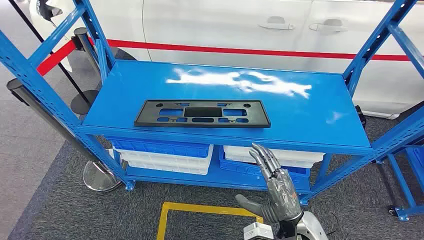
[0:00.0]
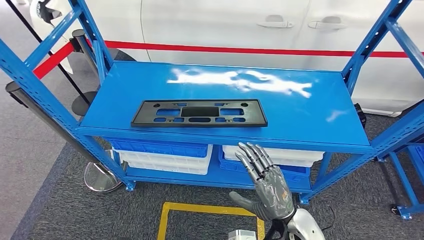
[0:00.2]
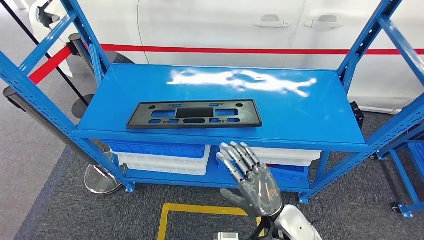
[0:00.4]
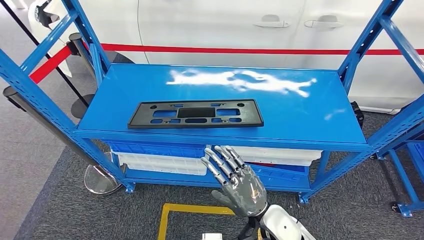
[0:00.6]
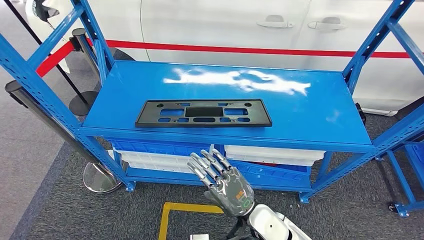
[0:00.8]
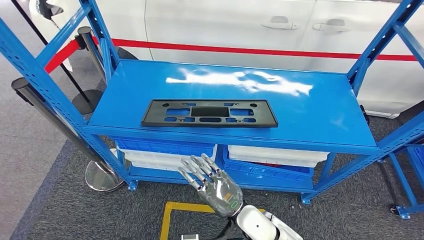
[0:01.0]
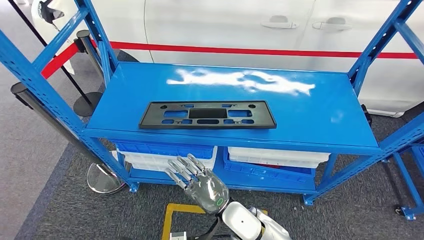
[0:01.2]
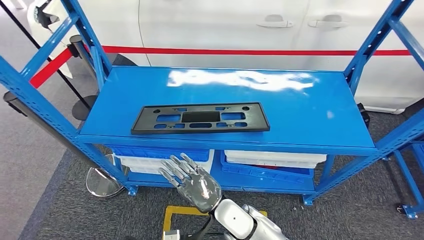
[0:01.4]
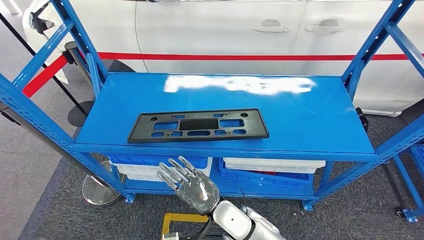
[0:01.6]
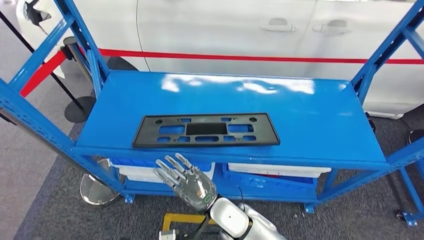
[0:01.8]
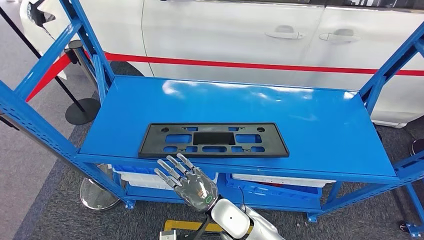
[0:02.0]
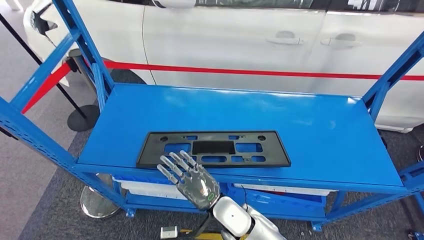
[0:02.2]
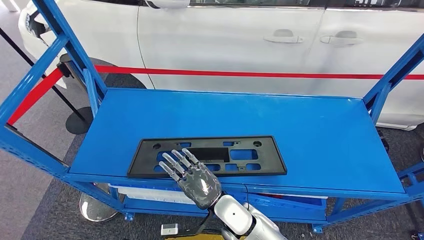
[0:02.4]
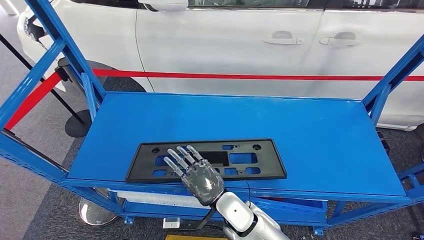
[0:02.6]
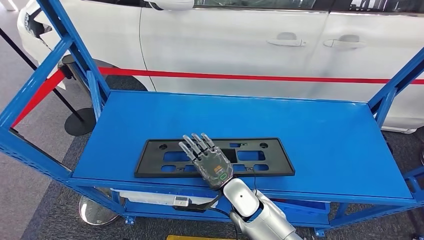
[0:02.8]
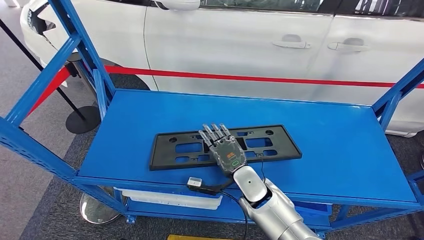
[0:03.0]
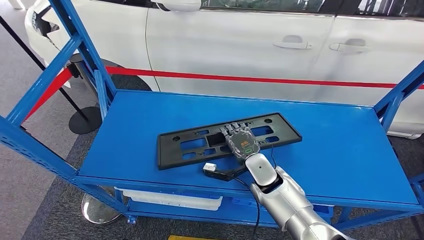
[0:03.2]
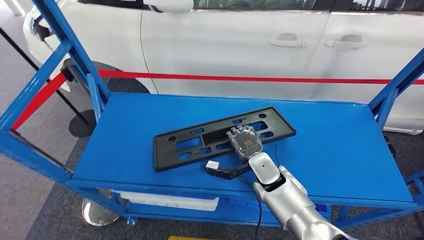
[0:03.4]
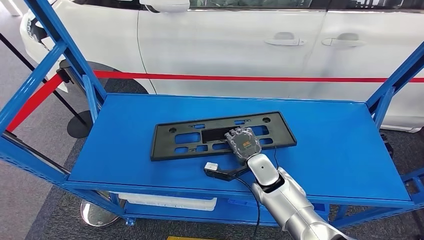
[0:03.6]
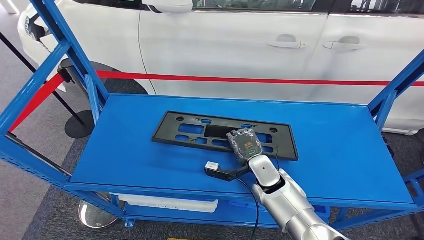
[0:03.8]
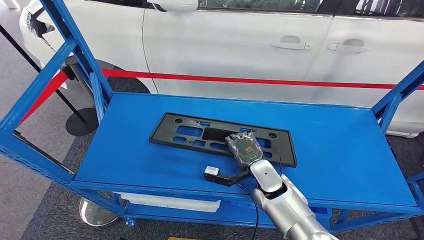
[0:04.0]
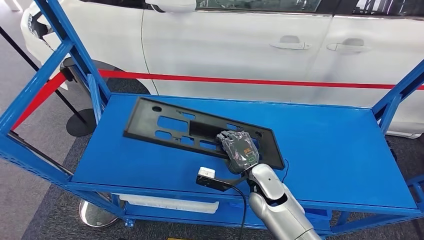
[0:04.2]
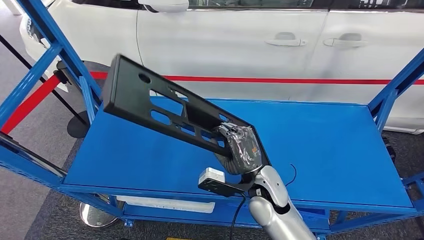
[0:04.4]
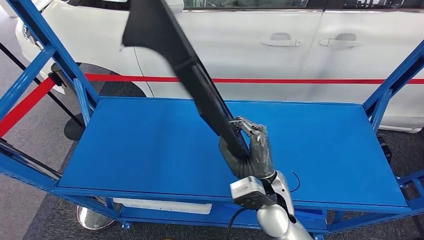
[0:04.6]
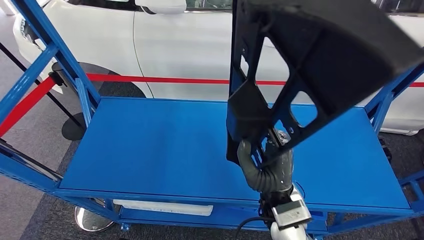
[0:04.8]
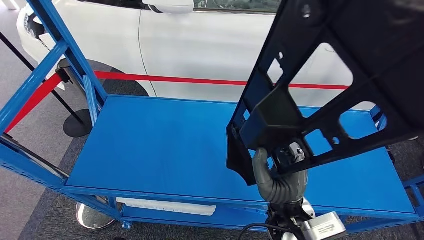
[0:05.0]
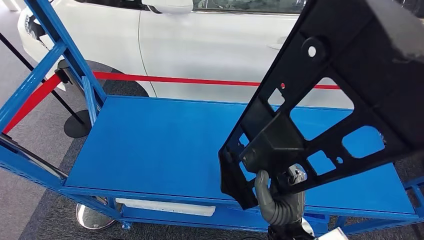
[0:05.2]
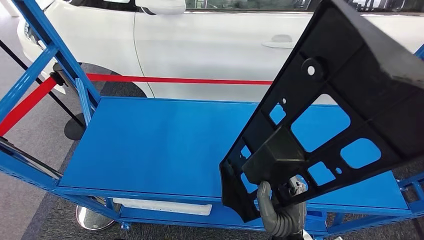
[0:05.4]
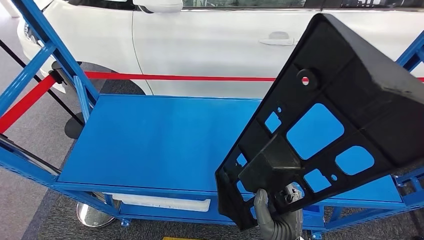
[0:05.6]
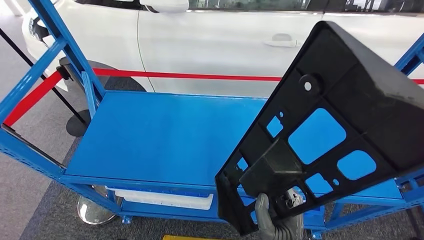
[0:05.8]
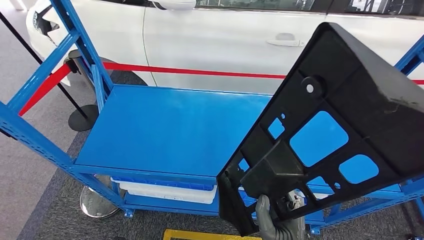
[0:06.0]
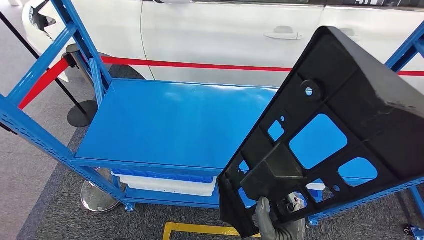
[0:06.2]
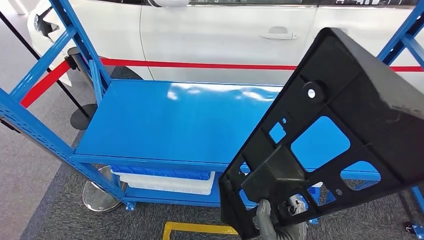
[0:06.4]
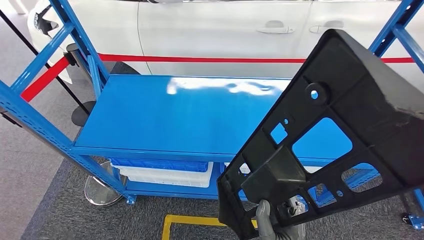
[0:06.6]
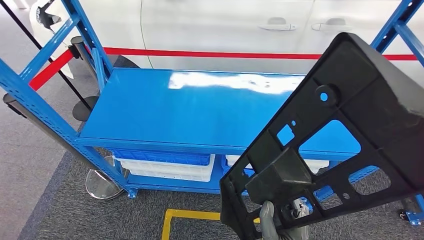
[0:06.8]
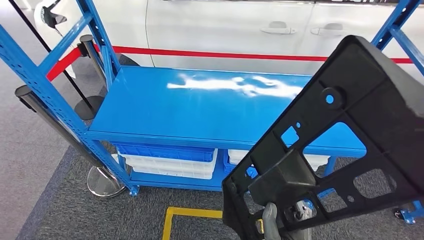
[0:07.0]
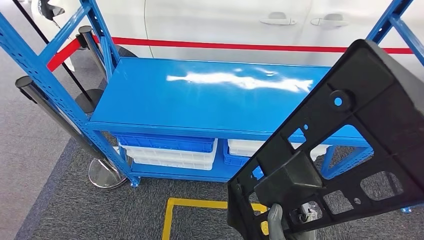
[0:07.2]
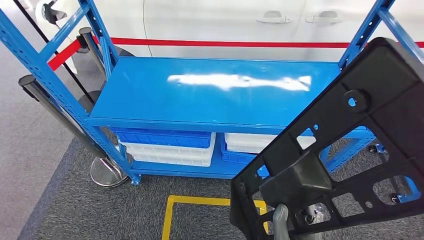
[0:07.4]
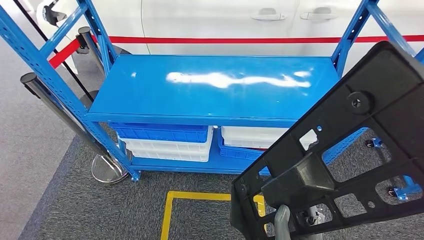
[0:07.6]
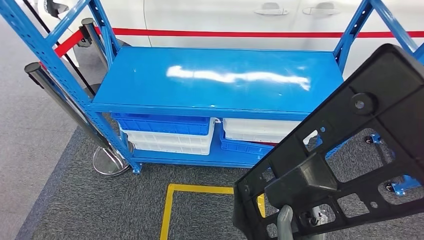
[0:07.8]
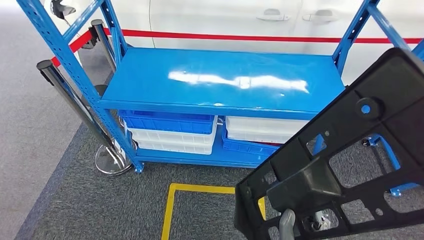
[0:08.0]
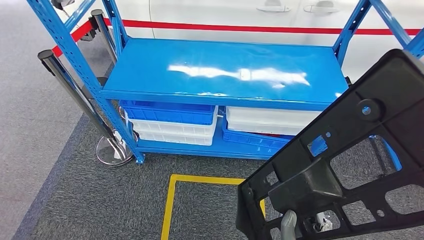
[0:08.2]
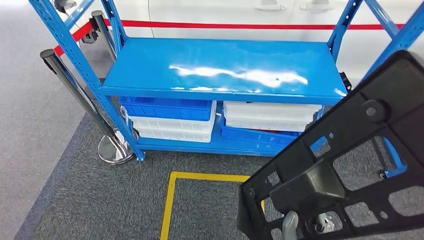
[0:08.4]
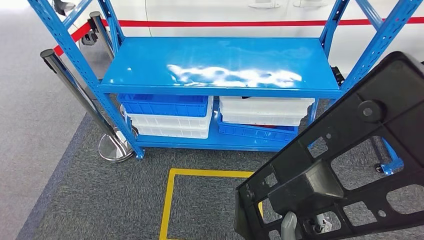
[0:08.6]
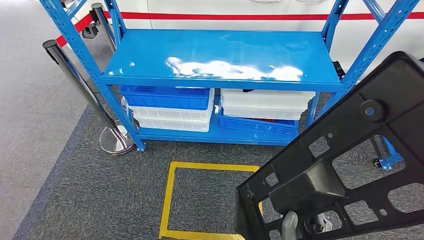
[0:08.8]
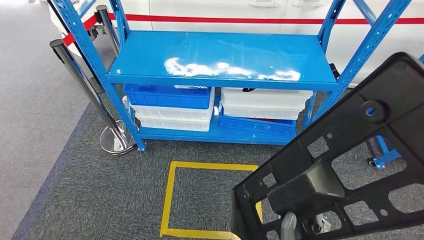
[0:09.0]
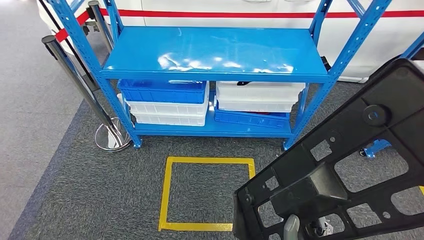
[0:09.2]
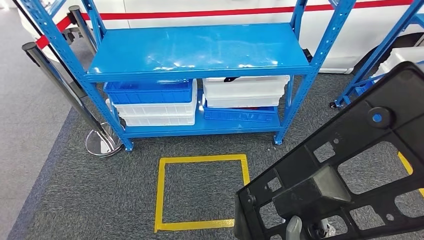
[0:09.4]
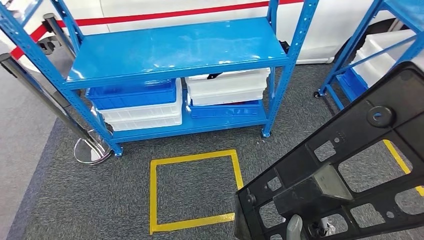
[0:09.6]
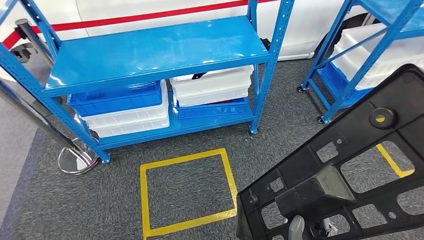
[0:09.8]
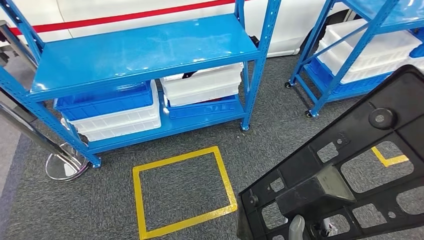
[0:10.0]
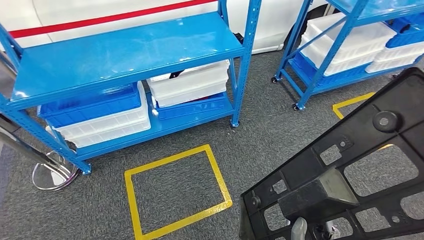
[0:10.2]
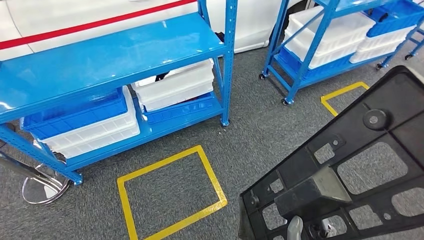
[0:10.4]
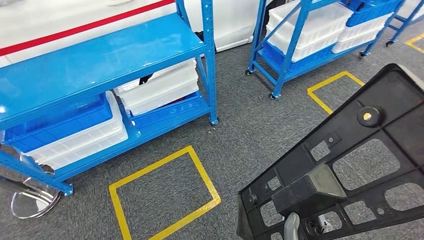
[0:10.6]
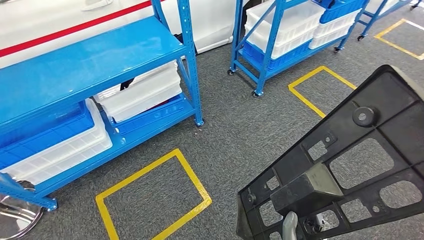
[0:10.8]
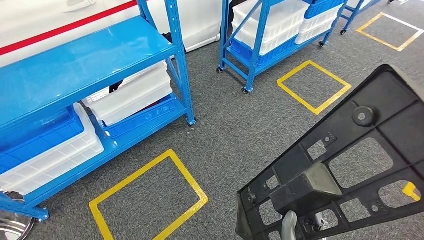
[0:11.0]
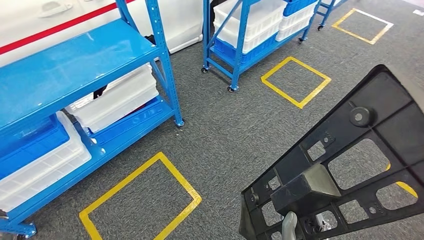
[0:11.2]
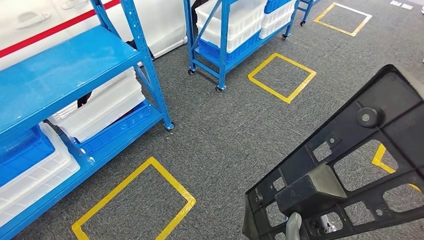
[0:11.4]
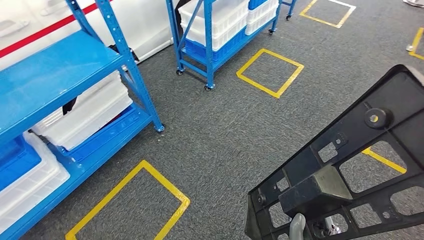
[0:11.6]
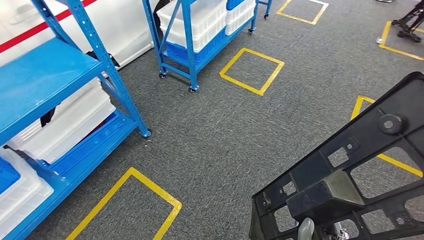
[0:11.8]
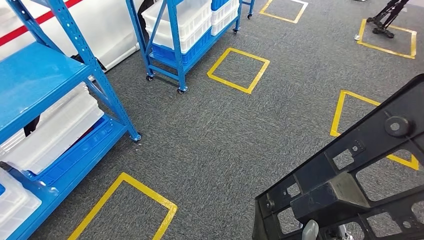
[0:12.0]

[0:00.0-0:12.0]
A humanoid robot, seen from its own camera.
Step, 0:00.0 to 0:05.8: Pick up the large parts from the shelf.

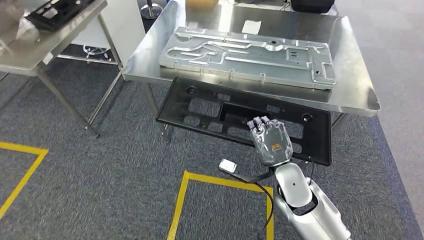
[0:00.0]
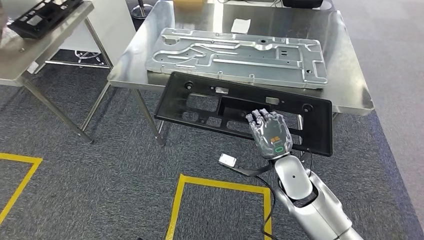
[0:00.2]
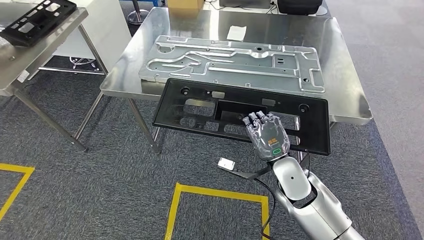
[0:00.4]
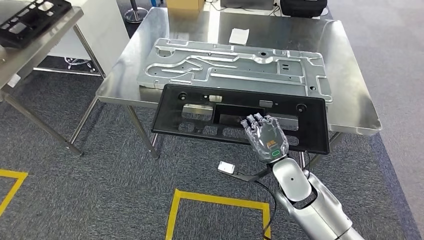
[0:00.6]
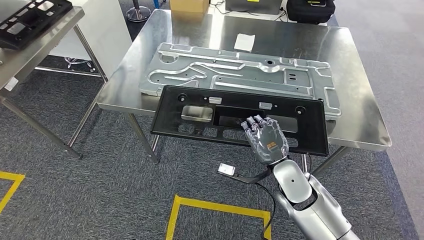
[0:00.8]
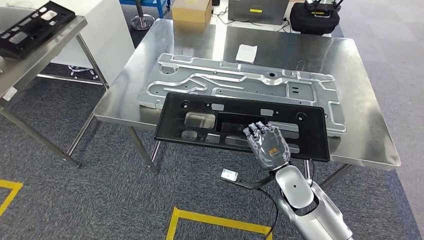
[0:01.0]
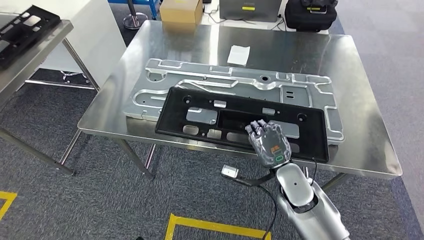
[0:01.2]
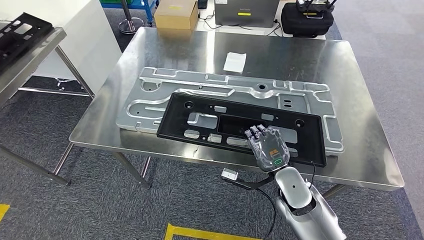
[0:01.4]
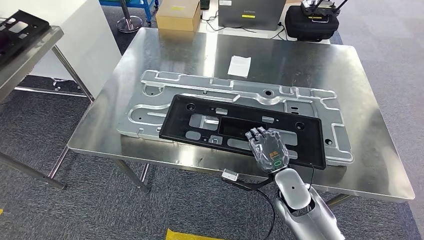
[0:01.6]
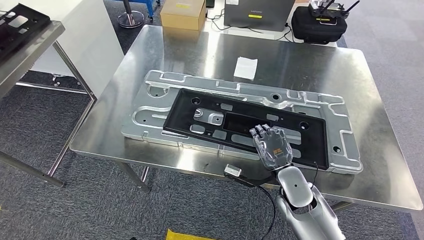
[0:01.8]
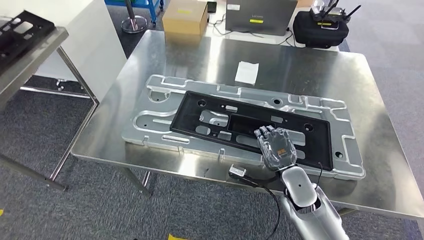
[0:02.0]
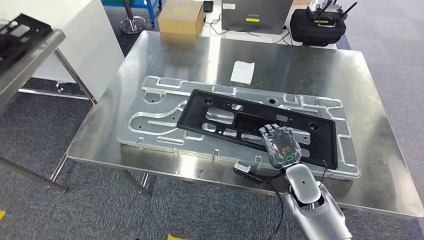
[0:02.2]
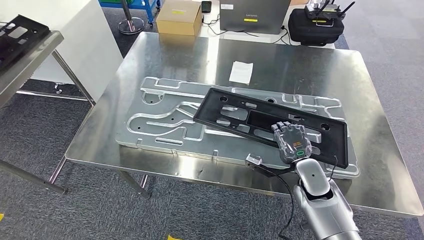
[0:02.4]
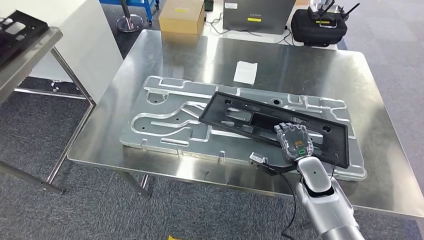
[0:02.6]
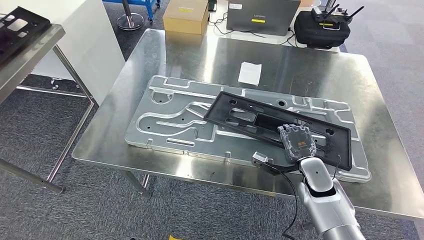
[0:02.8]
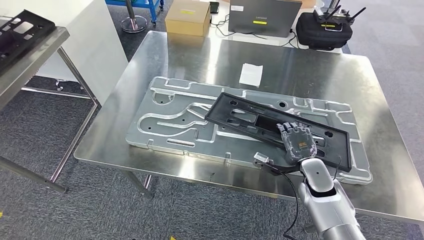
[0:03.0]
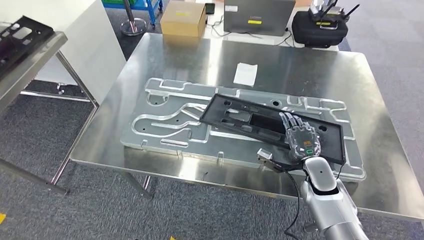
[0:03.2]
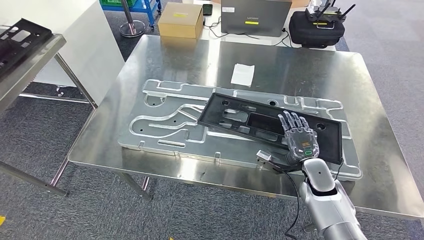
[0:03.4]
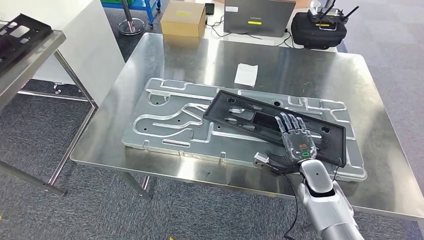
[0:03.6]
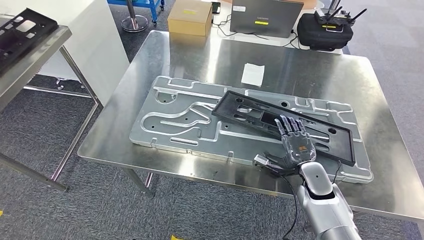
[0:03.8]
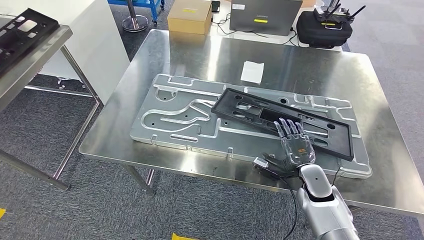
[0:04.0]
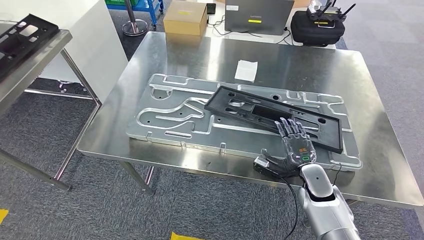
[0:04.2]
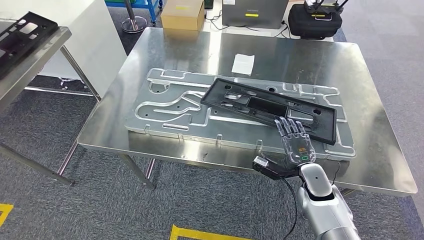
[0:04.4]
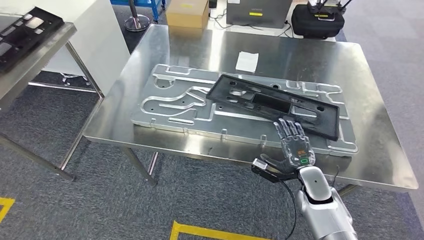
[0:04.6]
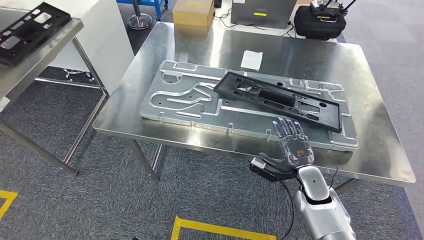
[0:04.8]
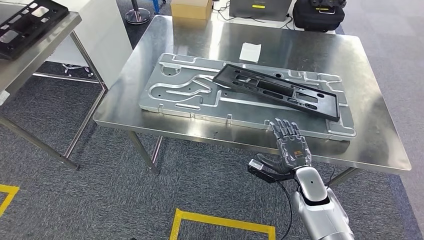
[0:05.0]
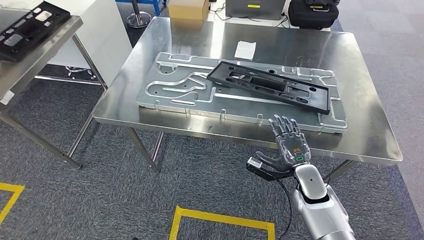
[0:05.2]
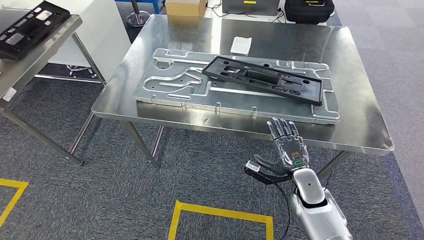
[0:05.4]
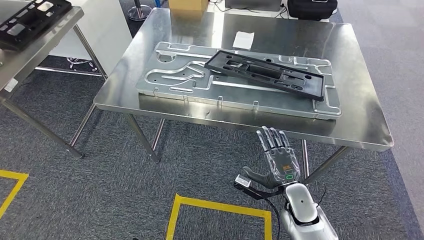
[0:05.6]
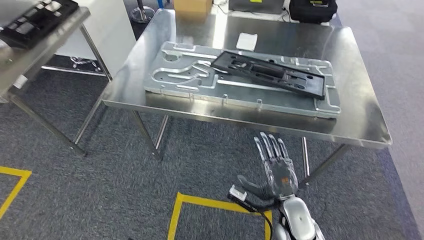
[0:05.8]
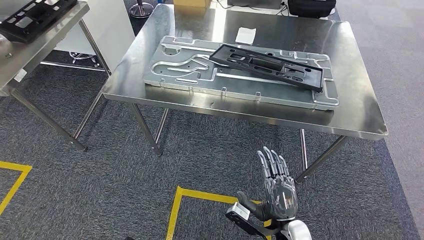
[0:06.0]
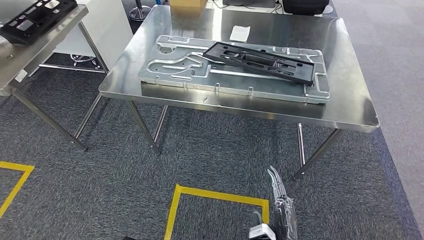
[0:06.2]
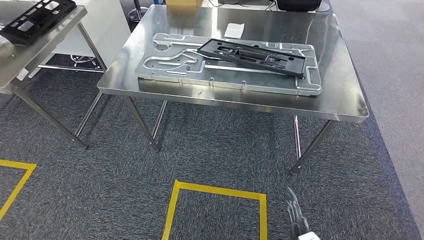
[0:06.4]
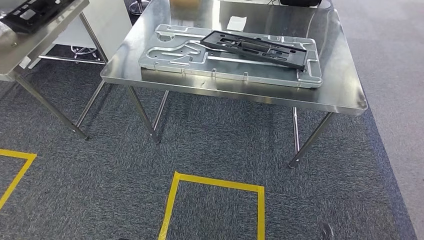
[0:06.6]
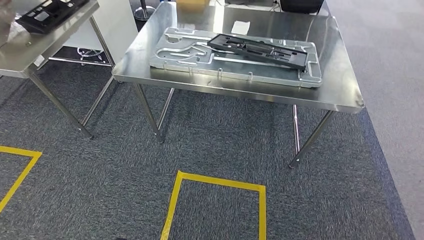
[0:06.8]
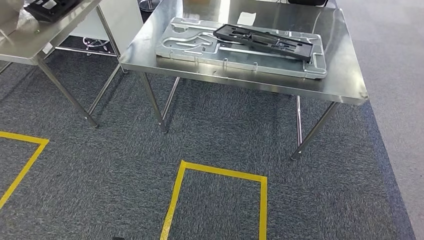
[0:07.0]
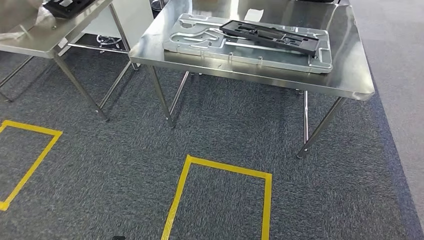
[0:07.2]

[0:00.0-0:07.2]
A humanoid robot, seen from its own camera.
Step, 0:03.4 to 0:06.2: Insert the large parts into the corresponding slots on the workbench.
